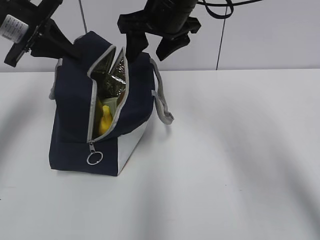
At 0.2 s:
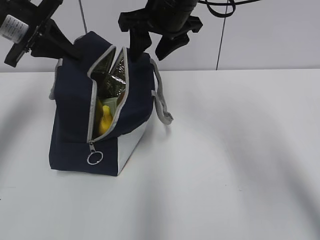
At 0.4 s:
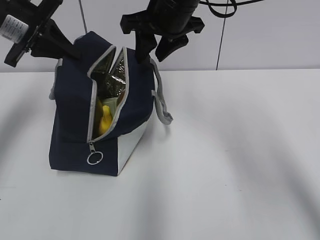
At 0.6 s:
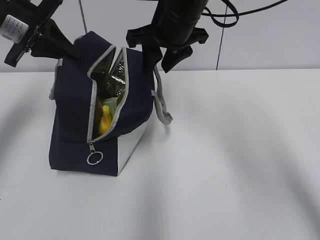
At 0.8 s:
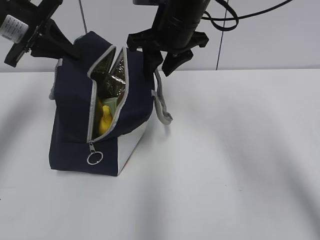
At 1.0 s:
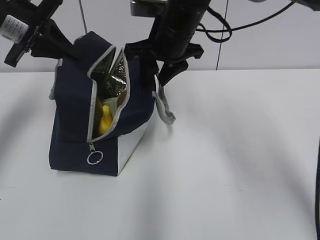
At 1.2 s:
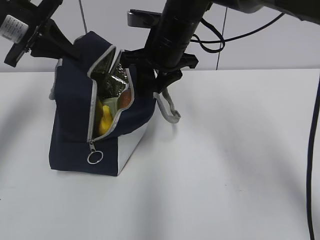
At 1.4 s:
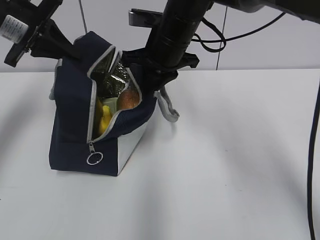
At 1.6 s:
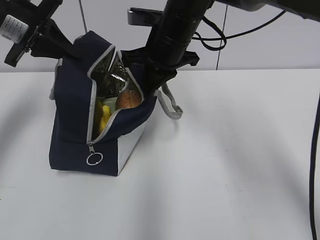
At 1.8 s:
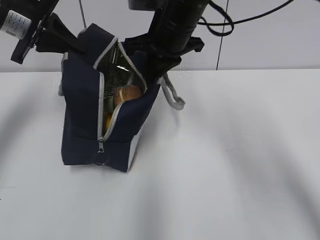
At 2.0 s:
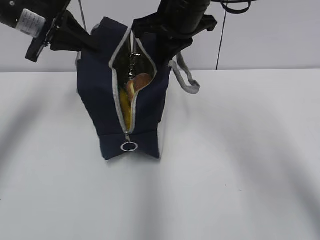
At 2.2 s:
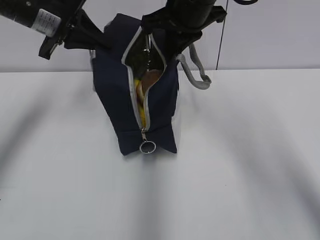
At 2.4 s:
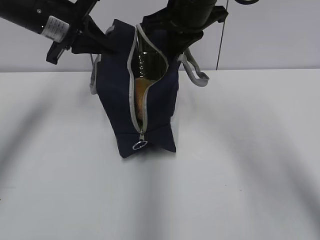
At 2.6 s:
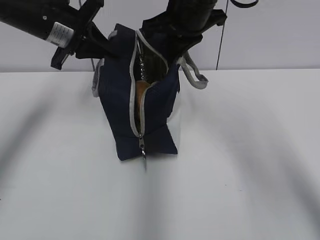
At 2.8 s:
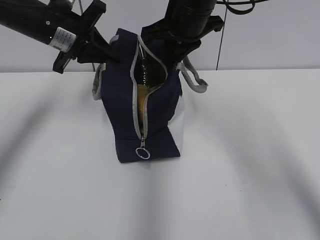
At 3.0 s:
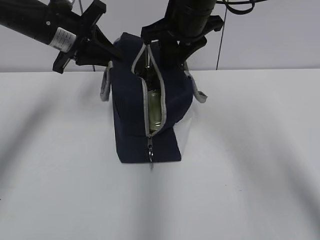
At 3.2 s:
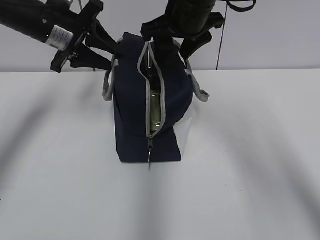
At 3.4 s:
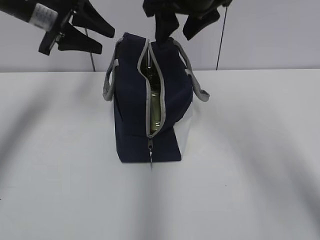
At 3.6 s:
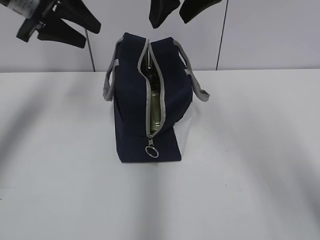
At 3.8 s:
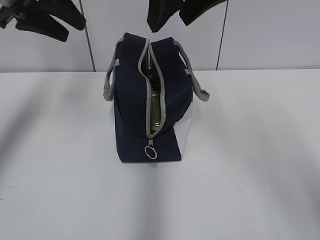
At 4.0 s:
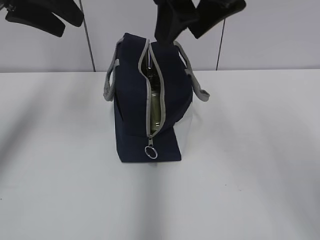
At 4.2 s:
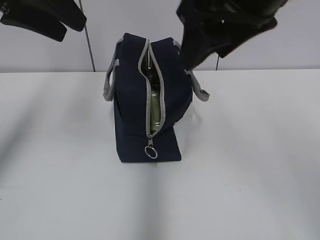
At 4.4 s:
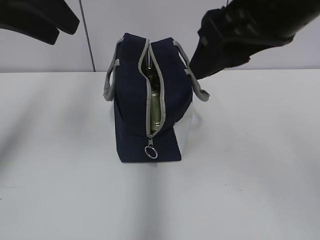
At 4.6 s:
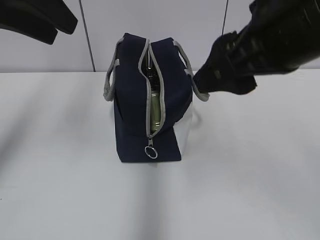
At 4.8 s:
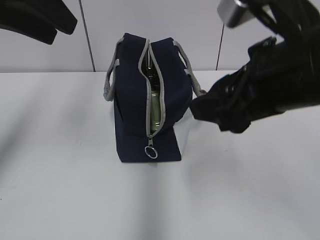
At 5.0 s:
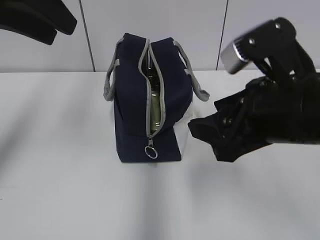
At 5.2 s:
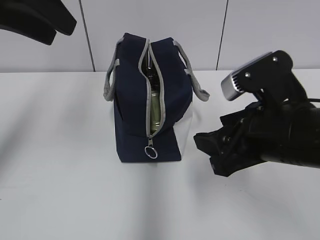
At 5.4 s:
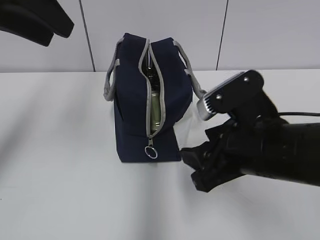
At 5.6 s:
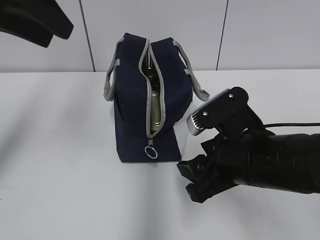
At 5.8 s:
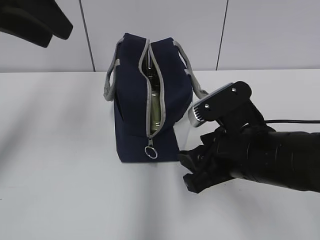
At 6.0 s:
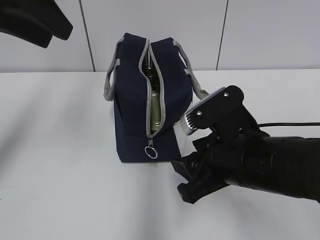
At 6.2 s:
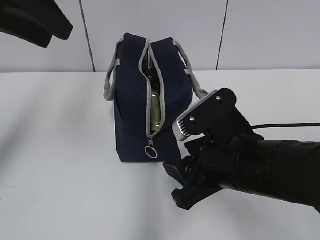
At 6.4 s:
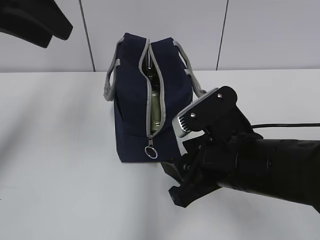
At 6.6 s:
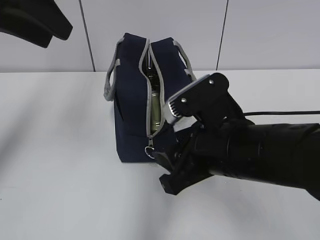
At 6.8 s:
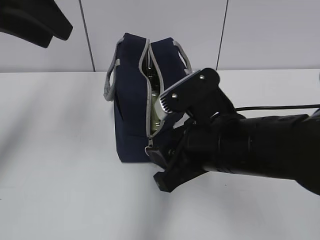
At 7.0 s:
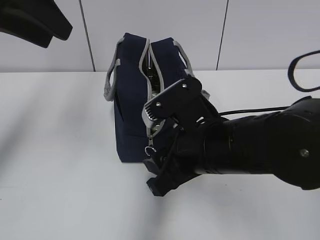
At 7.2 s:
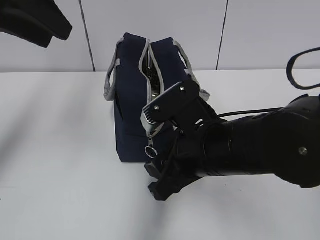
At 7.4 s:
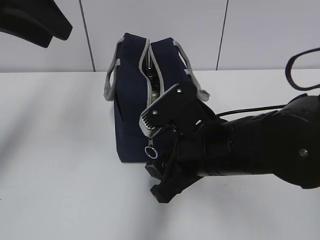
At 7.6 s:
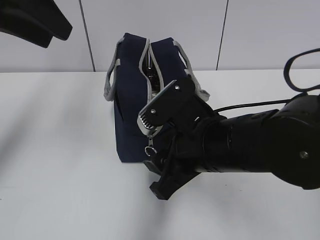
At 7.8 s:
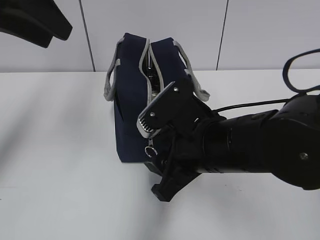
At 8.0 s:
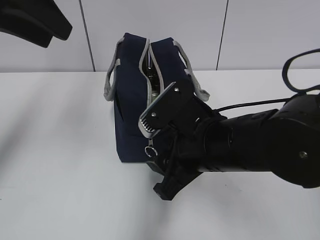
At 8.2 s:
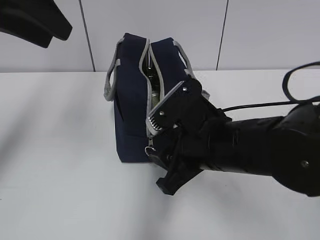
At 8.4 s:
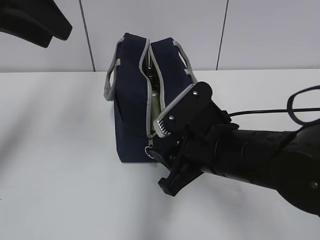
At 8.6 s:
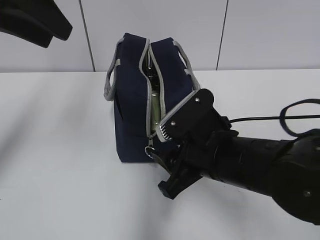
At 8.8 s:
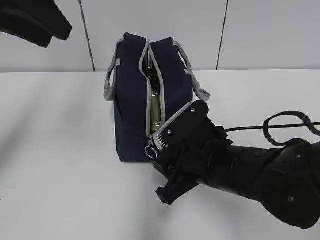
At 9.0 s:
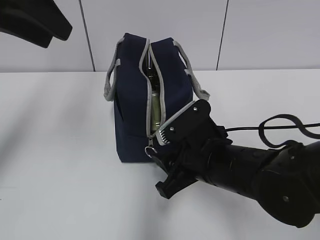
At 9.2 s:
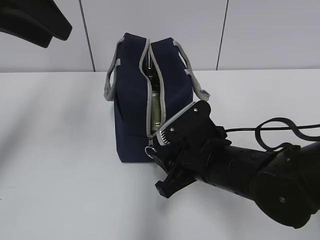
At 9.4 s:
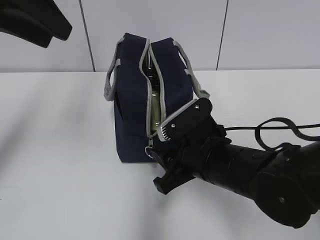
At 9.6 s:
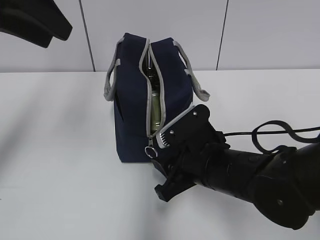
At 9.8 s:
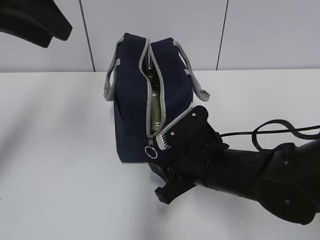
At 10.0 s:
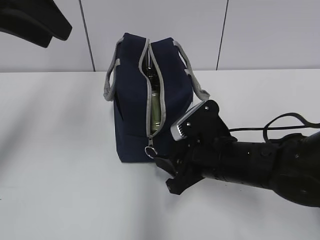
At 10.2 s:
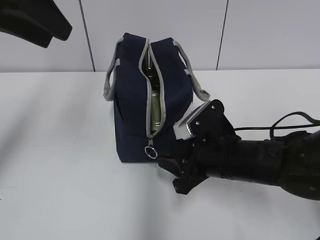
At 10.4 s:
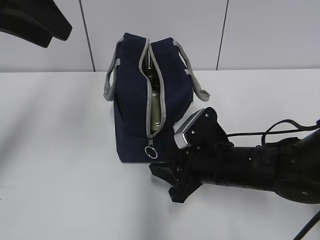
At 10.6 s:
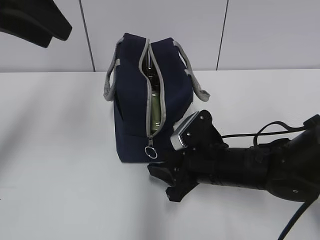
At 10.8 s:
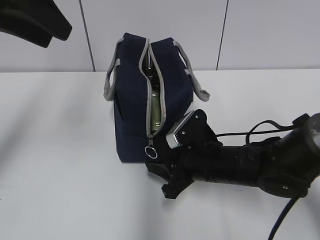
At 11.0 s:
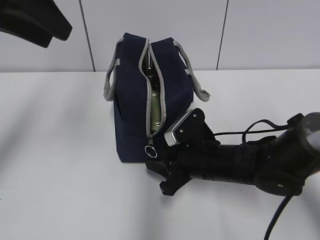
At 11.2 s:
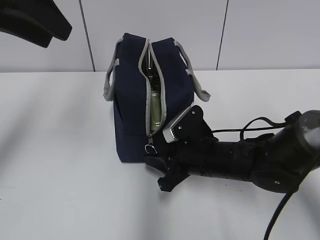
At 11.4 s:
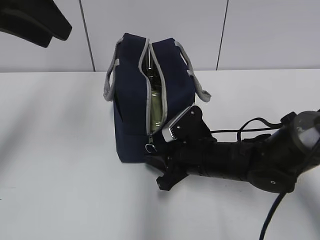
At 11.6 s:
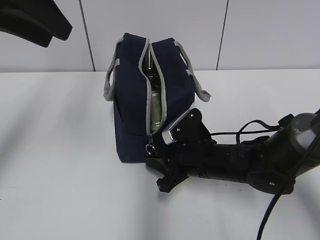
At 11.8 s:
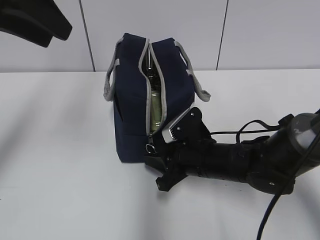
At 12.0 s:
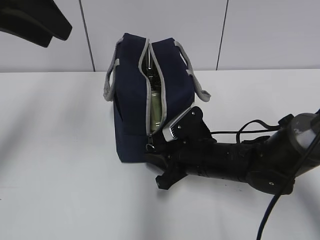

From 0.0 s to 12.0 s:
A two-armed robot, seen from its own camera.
From 0.0 s to 1.6 s: The right gripper is displaced downward by approximately 5 cm, and closes.
From 1.6 s to 3.0 s: The left gripper heads to the right, covering about 5 cm, while the right gripper moves upward, about 5 cm, and opens up.
From 3.0 s to 4.4 s: The left gripper shifts roughly 20 cm backward and upward, and opens up; the right gripper goes approximately 15 cm backward, and opens.
From 4.4 s to 6.0 s: The right gripper moves downward, some 20 cm.
From 6.0 s to 7.6 s: There are only small adjustments of the grippers.
From 7.6 s to 9.0 s: The right gripper is displaced downward by some 5 cm.
From 9.0 s to 10.4 s: There are only small adjustments of the grippers.
From 10.4 s to 12.0 s: The grippers make only small movements.

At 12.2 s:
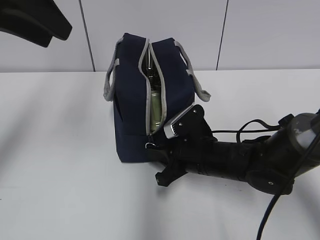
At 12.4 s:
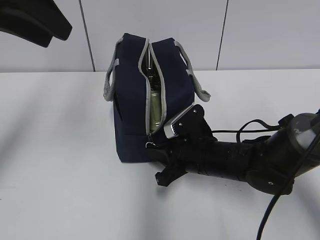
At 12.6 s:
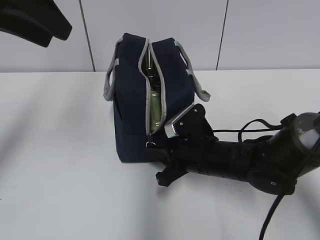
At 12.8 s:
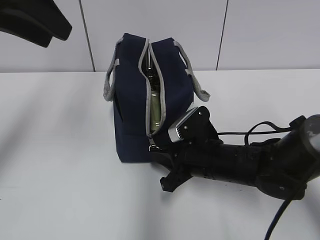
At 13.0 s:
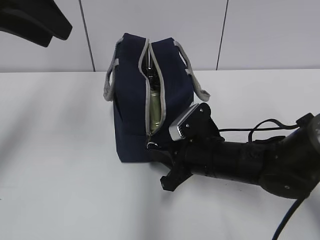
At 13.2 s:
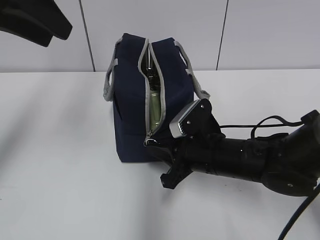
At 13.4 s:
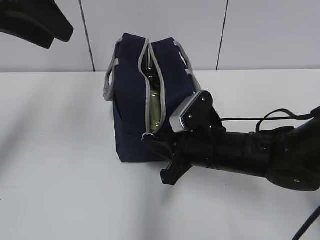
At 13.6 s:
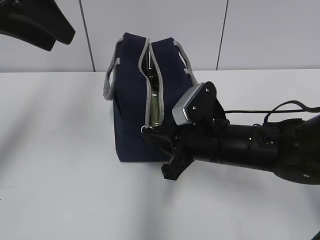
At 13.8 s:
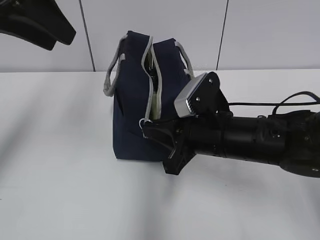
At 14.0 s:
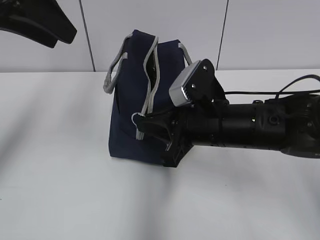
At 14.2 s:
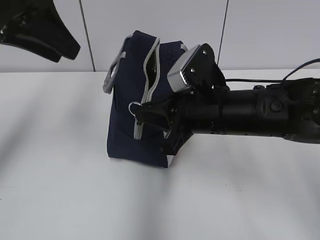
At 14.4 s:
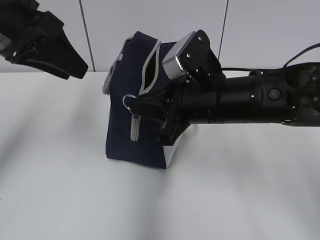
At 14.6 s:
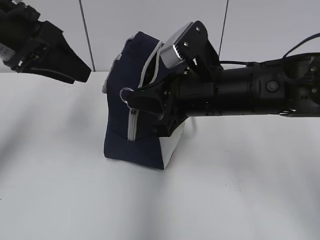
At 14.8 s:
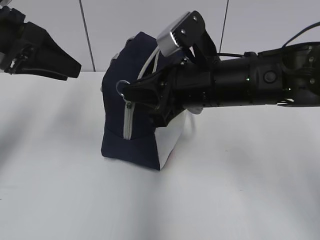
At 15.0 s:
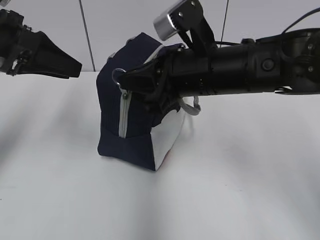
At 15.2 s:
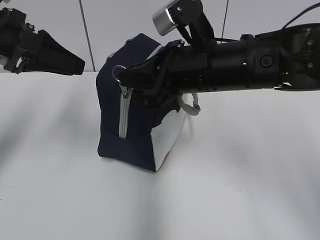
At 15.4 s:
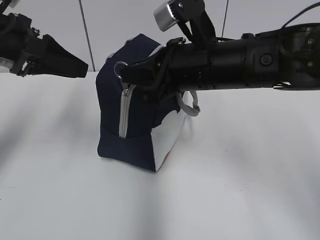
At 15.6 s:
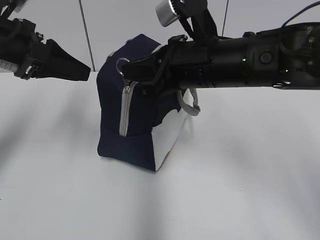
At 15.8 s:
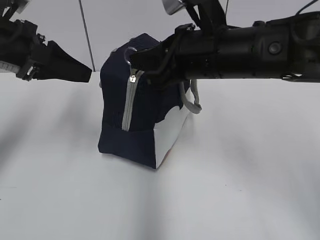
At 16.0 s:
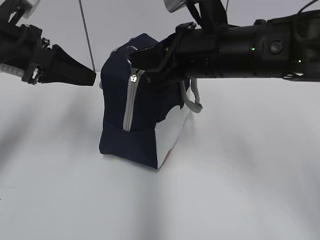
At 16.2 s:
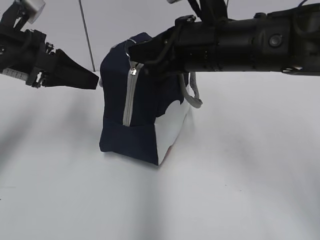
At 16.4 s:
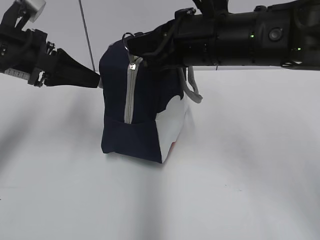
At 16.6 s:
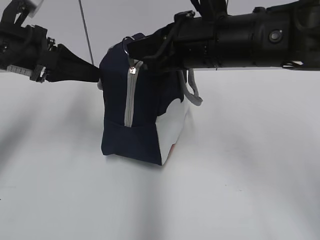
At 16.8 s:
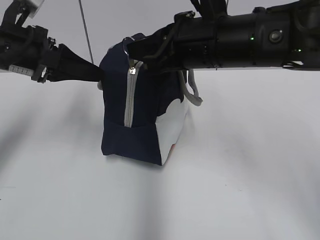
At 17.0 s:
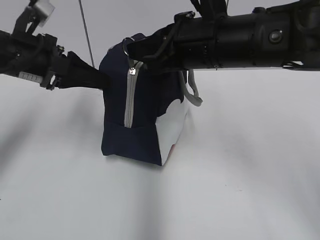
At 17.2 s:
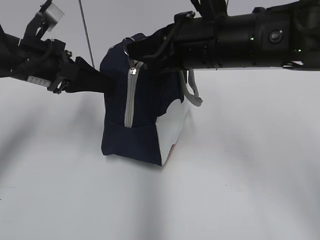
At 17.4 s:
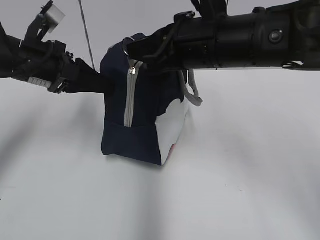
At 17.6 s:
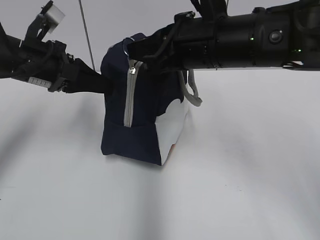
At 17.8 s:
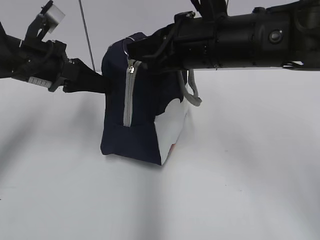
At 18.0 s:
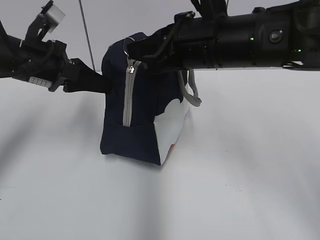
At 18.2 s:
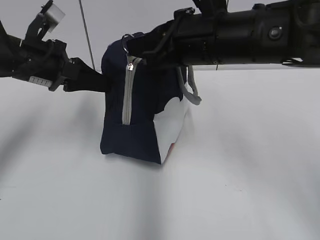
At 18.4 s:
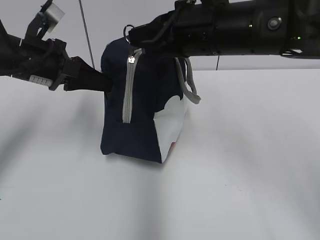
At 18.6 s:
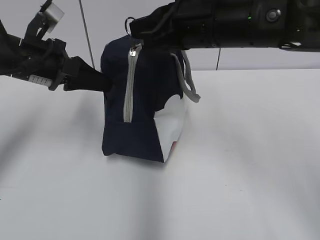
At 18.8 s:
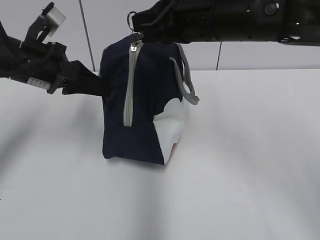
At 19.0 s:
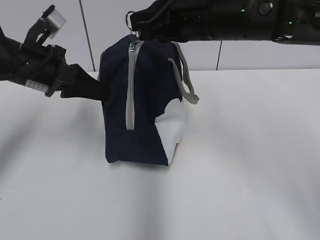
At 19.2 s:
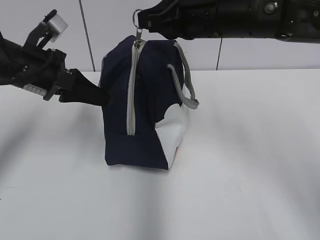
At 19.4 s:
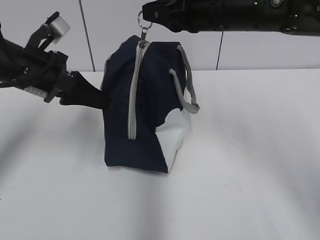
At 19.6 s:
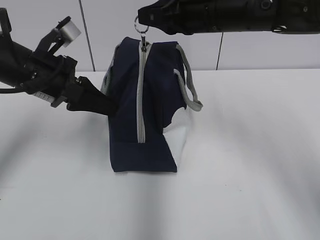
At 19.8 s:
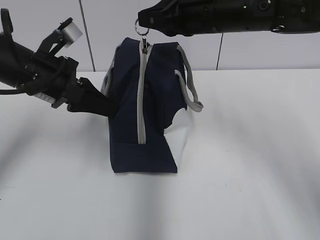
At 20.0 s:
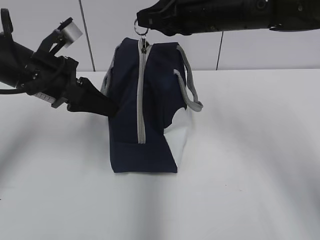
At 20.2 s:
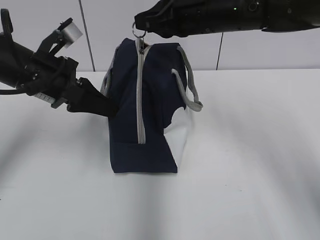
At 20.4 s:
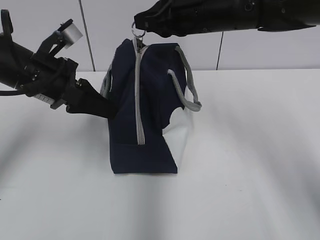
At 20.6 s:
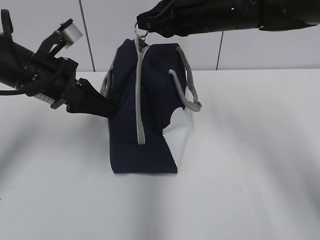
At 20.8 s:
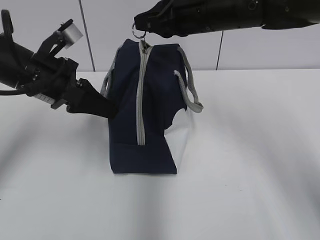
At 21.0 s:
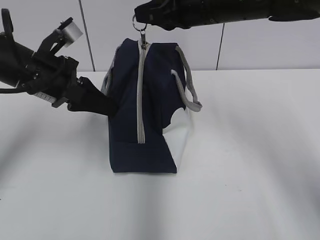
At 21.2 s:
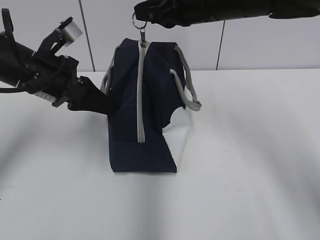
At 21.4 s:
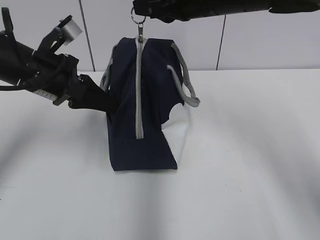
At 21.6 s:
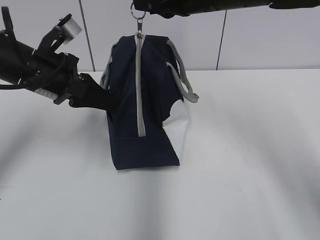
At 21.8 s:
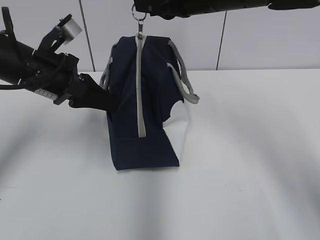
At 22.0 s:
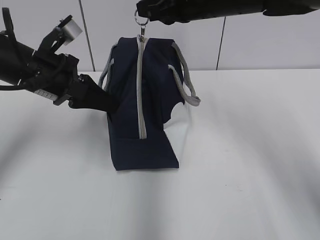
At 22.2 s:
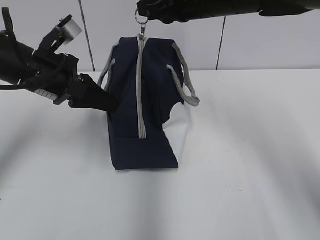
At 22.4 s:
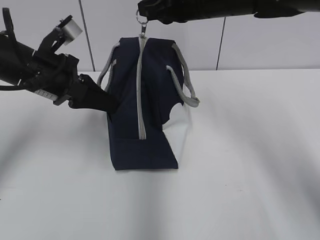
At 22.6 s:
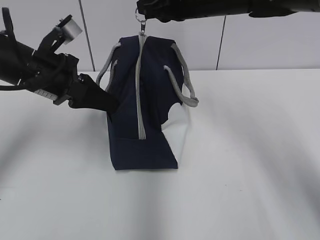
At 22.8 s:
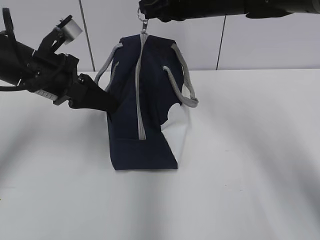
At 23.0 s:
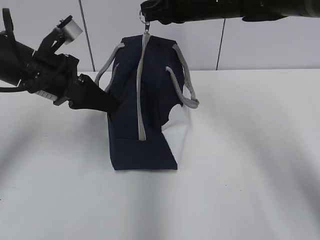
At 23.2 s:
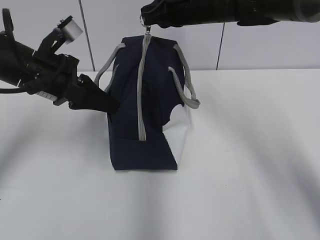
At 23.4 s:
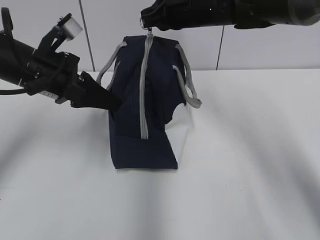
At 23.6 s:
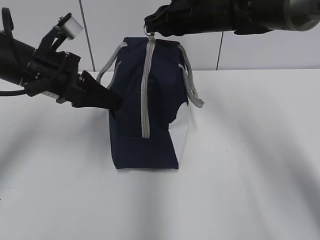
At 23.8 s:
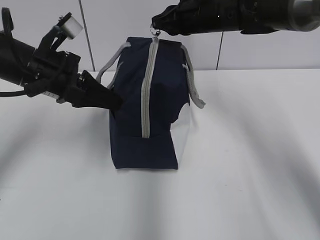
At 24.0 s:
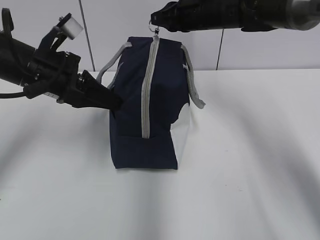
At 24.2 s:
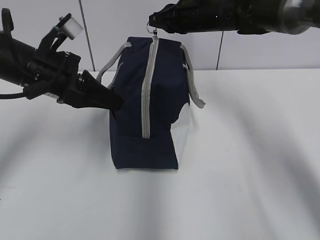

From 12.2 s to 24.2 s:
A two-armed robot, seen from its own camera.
From 12.2 s to 13.8 s: The right gripper shifts roughly 10 cm upward.
From 13.8 s to 15.2 s: The right gripper shifts approximately 10 cm upward; the left gripper goes roughly 10 cm downward.
From 15.2 s to 16.6 s: The grippers stay close to where they were, moving slightly.
From 16.6 s to 18.2 s: The left gripper closes up.
From 18.2 s to 19.8 s: The right gripper shifts some 5 cm forward.
From 19.8 s to 22.6 s: The grippers stay close to where they were, moving slightly.
From 22.6 s to 24.2 s: The right gripper travels forward and downward by roughly 10 cm.
